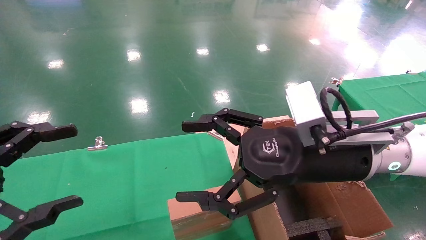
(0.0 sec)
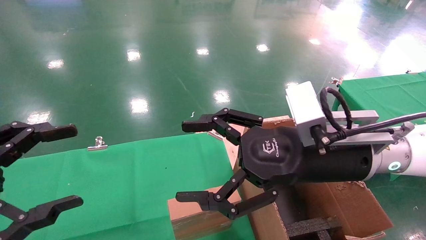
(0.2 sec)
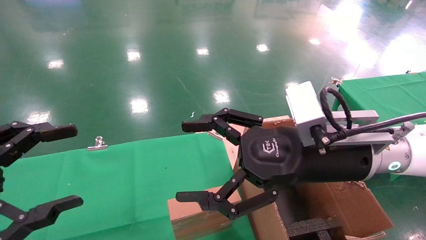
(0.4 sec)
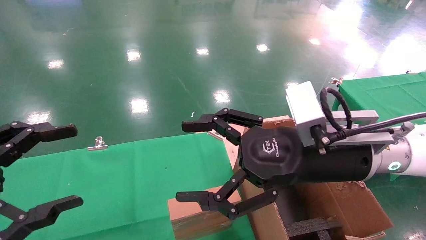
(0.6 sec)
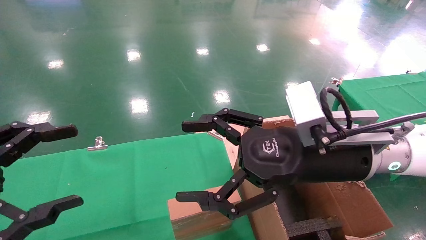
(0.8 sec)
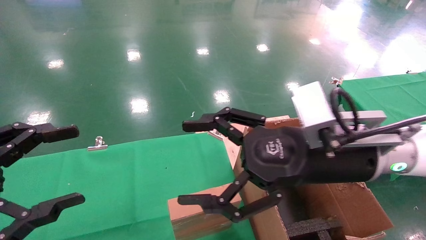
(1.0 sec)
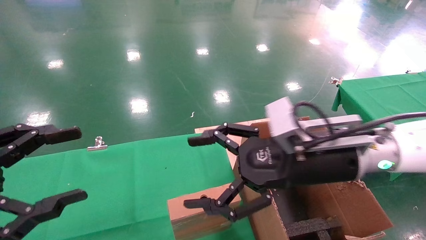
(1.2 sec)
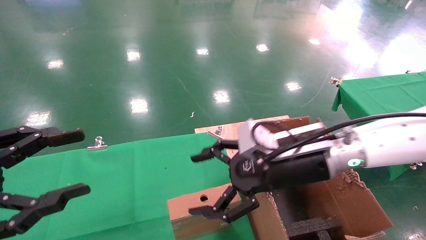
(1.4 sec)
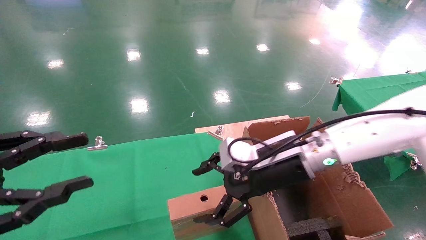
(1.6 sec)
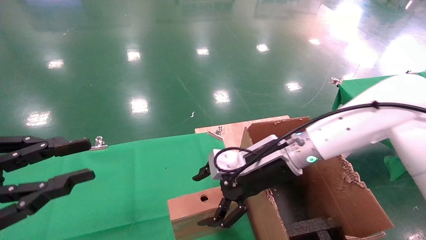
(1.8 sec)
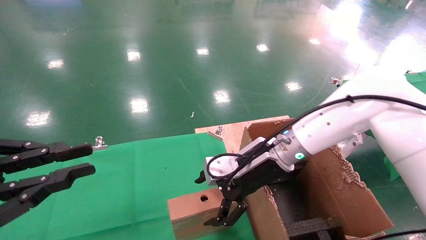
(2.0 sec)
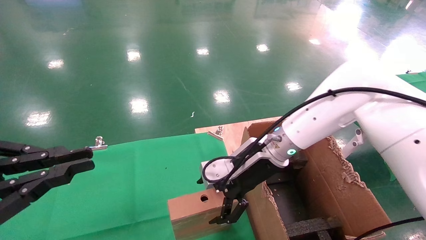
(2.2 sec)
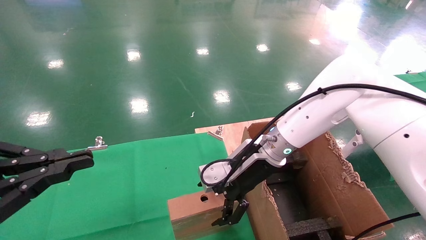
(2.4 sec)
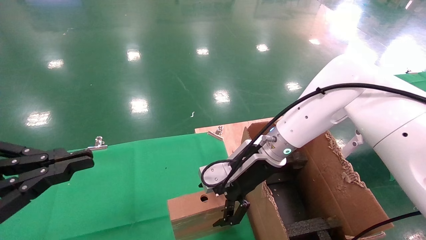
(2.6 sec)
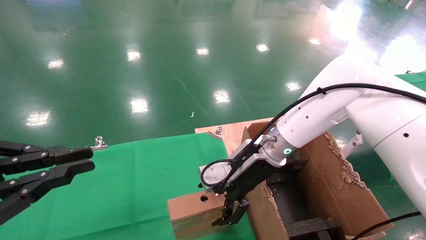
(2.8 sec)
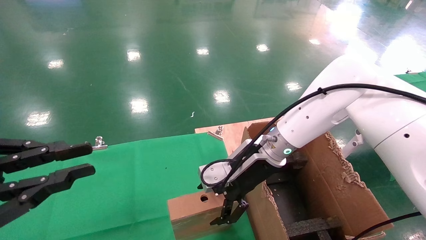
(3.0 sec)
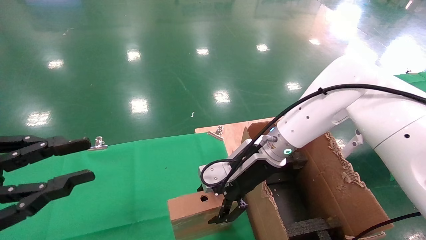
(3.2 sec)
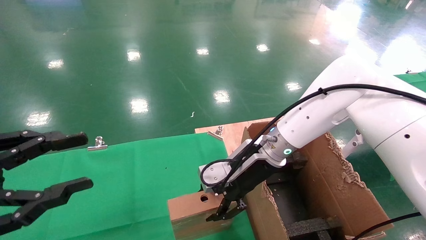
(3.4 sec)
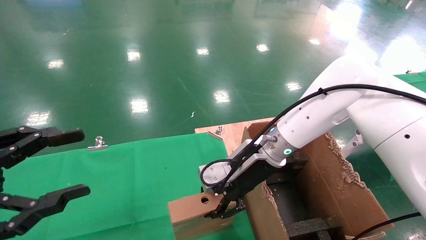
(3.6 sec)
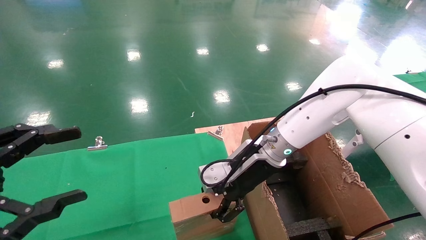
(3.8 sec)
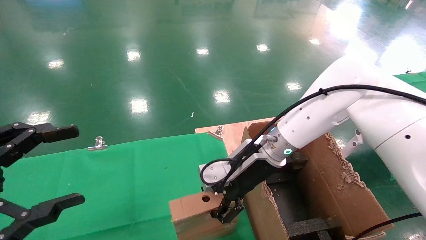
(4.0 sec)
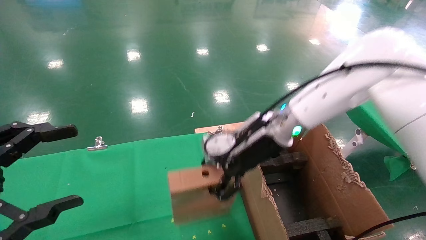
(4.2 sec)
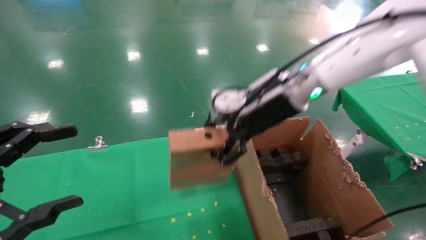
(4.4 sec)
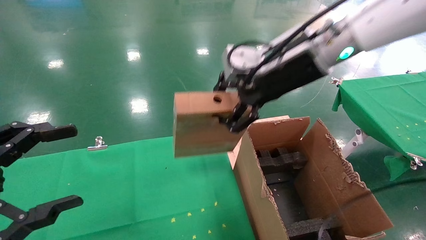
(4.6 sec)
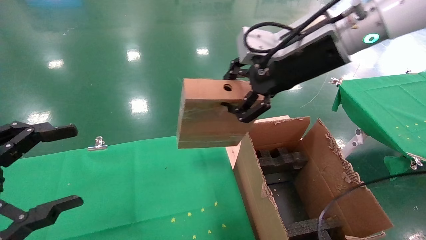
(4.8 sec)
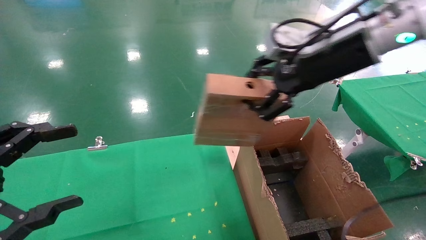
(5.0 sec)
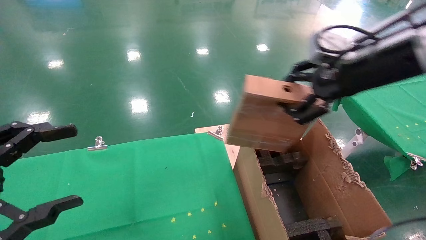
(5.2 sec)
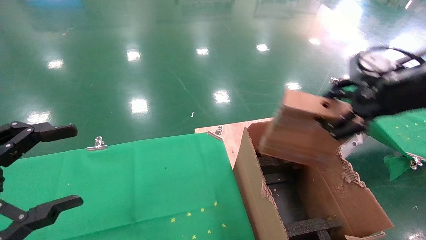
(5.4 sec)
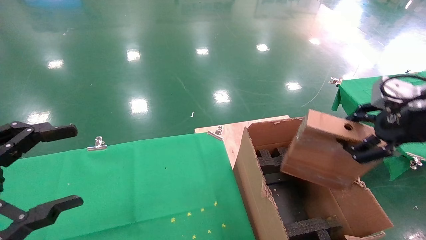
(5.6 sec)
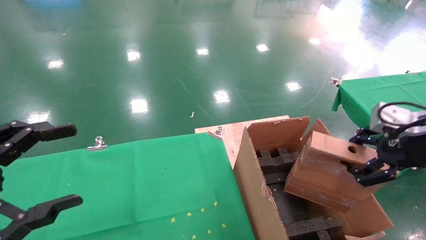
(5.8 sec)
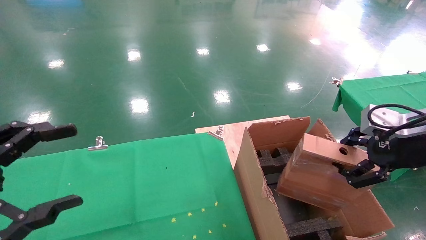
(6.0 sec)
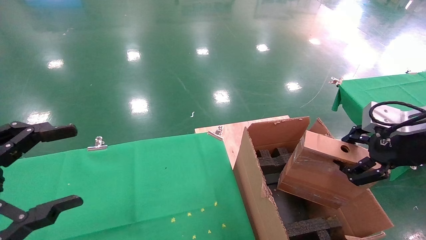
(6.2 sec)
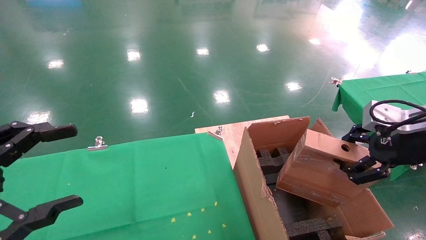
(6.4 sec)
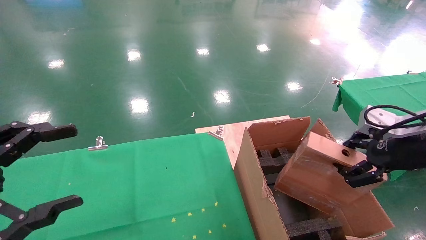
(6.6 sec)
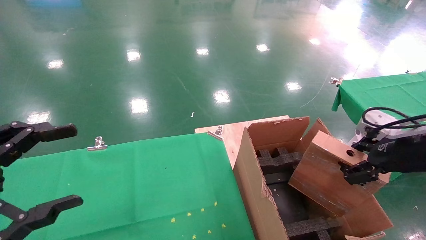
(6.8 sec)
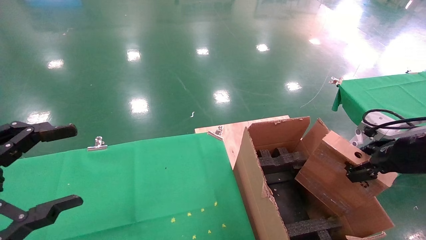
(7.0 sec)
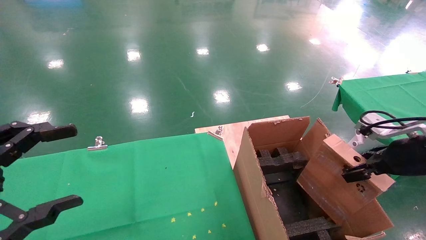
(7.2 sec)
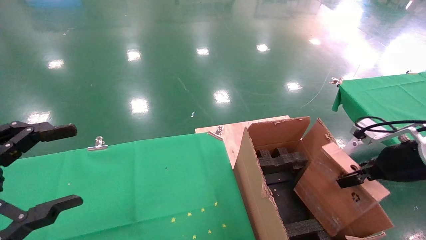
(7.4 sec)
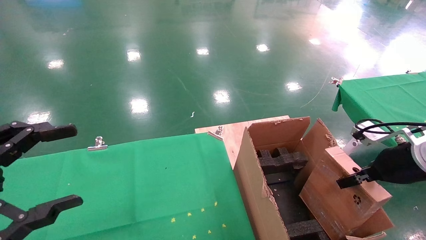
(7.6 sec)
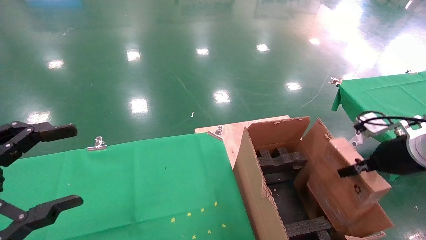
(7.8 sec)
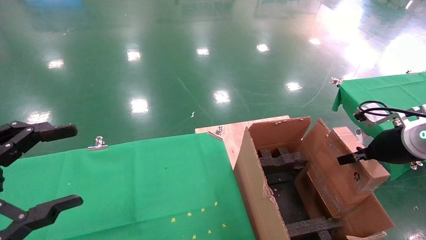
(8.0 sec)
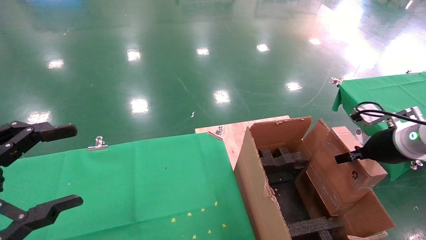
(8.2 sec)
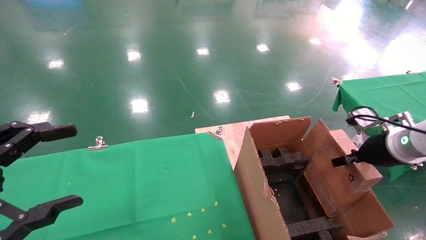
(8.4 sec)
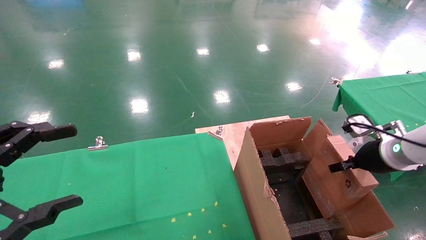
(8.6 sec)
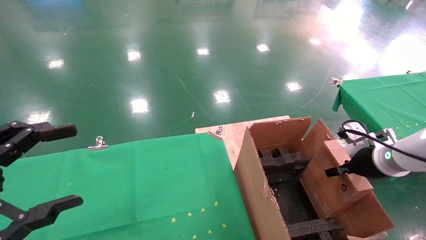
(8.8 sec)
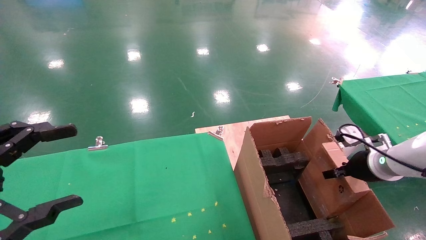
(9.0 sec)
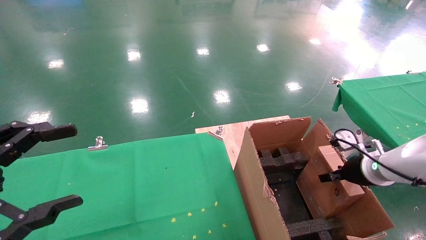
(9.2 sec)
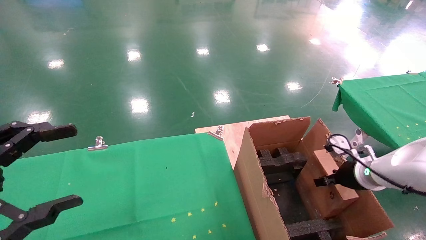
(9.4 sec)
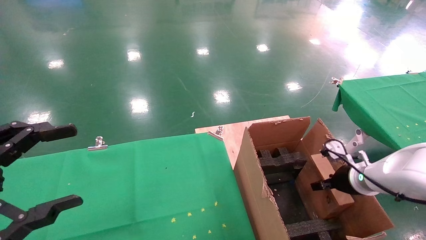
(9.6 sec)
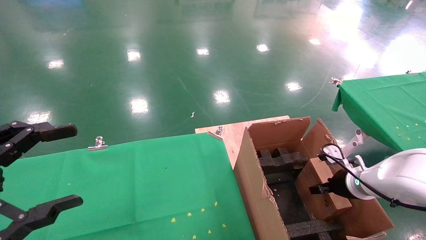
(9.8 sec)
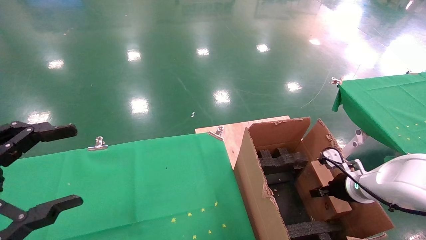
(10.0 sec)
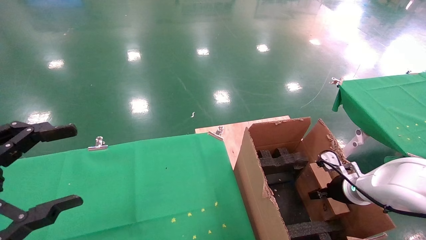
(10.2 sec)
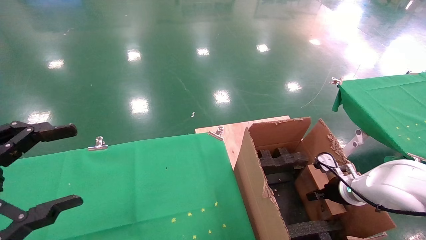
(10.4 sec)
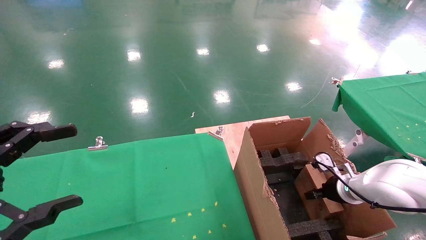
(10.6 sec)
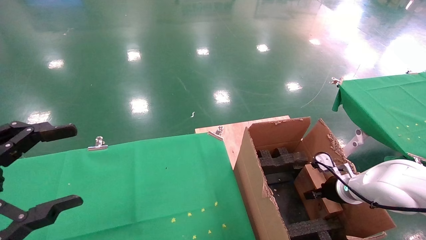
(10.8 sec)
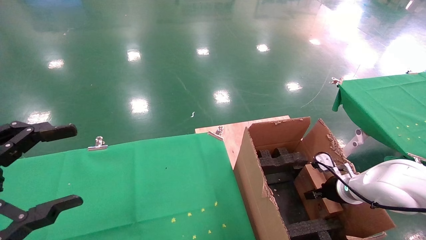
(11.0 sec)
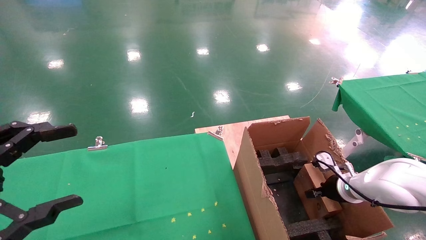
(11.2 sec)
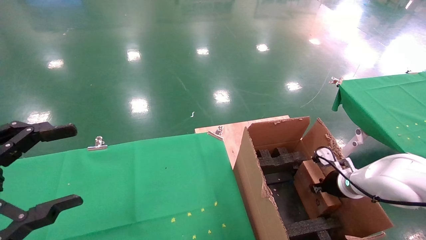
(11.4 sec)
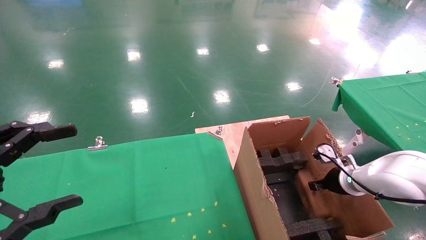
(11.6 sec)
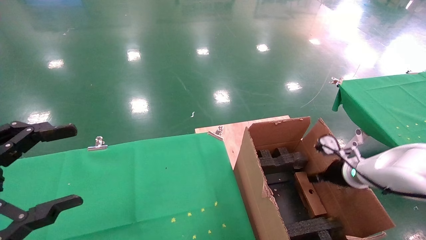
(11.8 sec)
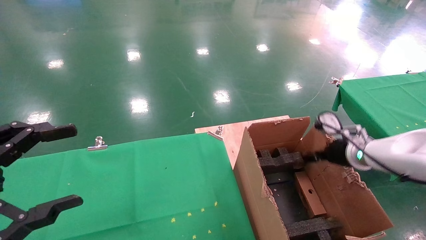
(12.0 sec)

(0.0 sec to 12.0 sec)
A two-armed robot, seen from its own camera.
Task of the whole recording: using a robotic arm to pick up a cardboard box and palace it the carton.
Step, 0.8 sec - 3.6 sec: Pick up the mouse and the power cord paper box.
0.0 sec - 1.6 sec: The right gripper travels forward and downward by roughly 10 cm. Meanwhile the left gripper closes up.
1.6 sec - 3.0 sec: The left gripper closes up; the right gripper is displaced forward by approximately 5 cm.
3.0 sec - 4.4 sec: The left gripper opens up. The right gripper shifts some 15 cm upward, and closes up.
4.4 sec - 6.0 sec: The right gripper shifts some 25 cm to the right and backward.
6.0 sec - 7.6 sec: The right gripper goes about 10 cm downward and forward.
7.6 sec - 9.0 sec: The right gripper moves downward and forward, roughly 10 cm.
9.0 sec - 10.4 sec: The right gripper moves downward, about 10 cm.
10.4 sec - 12.0 sec: The right gripper moves upward, some 10 cm, and opens its fingers.

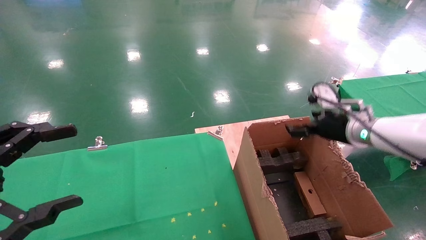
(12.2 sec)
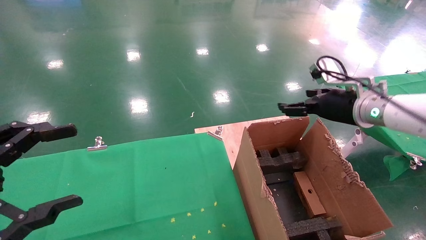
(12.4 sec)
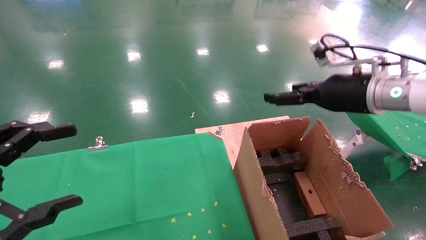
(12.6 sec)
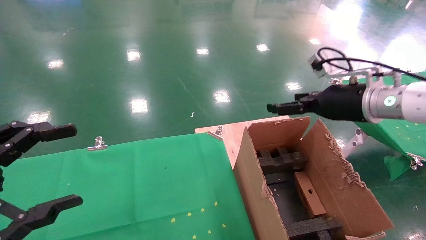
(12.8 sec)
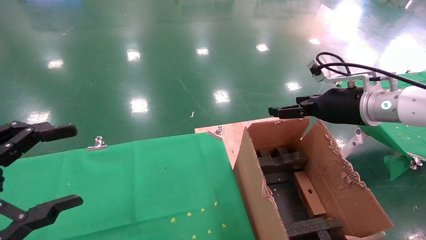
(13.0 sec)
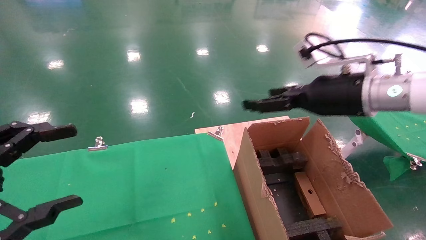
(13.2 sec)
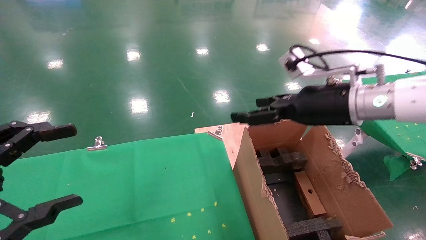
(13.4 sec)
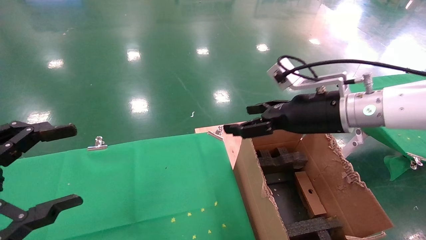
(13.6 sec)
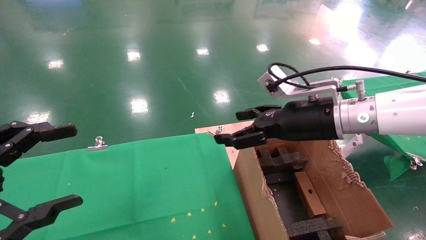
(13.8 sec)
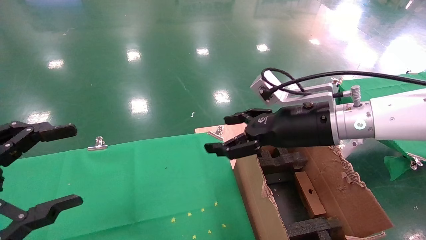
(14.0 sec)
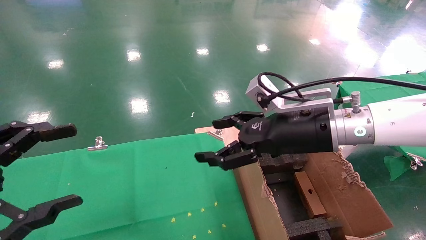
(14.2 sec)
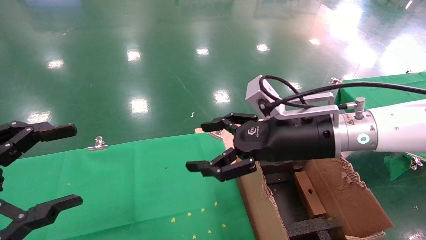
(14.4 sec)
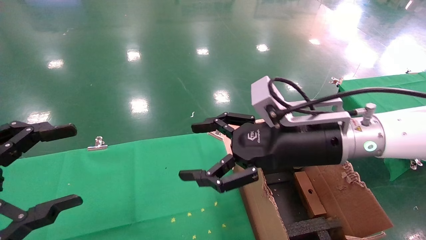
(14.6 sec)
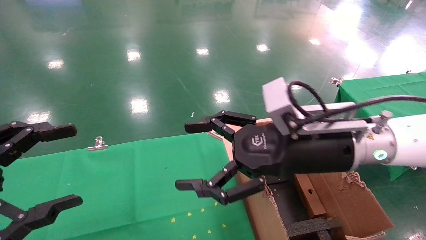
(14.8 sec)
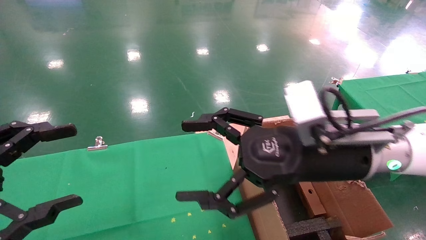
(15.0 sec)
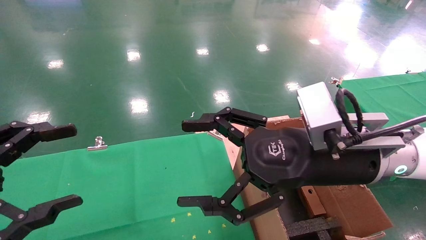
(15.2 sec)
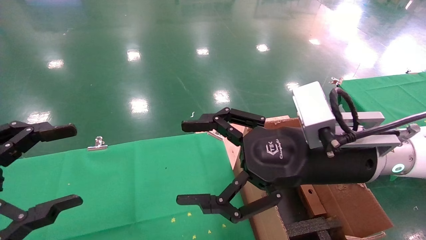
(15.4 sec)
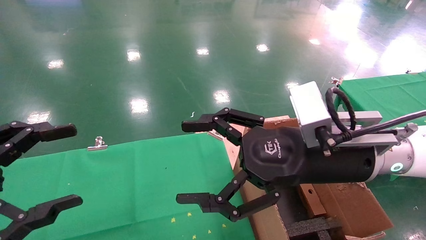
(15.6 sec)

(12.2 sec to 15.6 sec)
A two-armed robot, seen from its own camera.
Task of the whole recording: using a robotic arm to pick up a cardboard box and palace it the carton.
12.2 sec - 13.8 sec: The right gripper shifts some 15 cm to the left and upward.
13.8 sec - 15.6 sec: The right gripper moves backward, roughly 10 cm.
